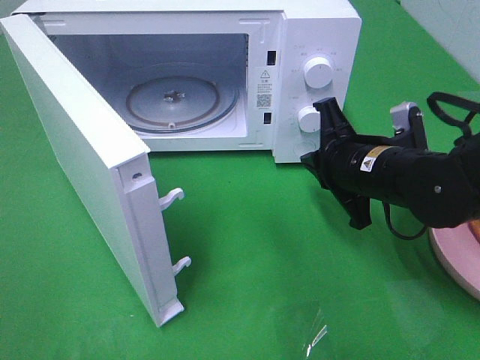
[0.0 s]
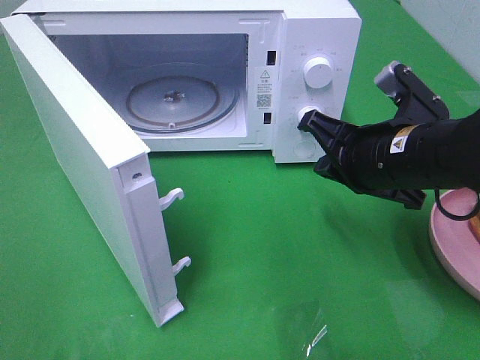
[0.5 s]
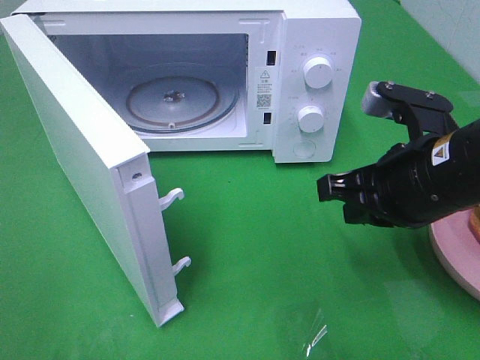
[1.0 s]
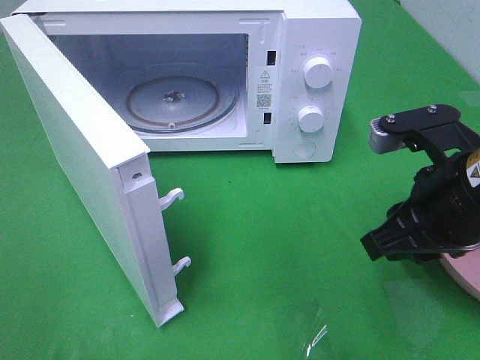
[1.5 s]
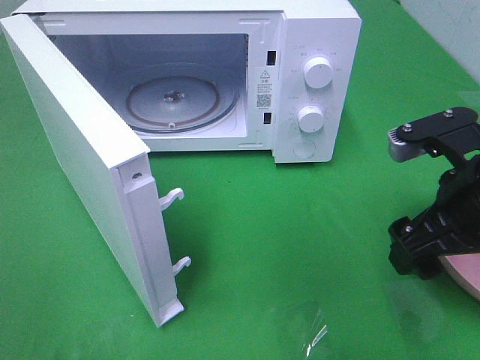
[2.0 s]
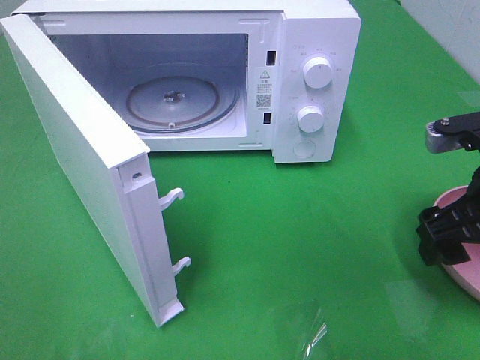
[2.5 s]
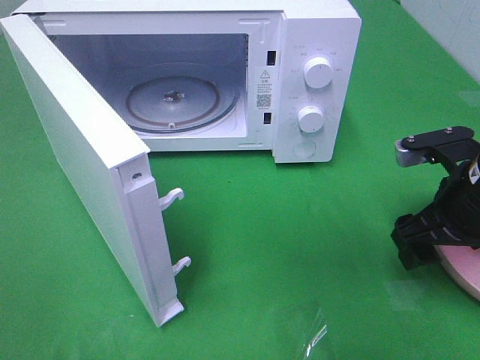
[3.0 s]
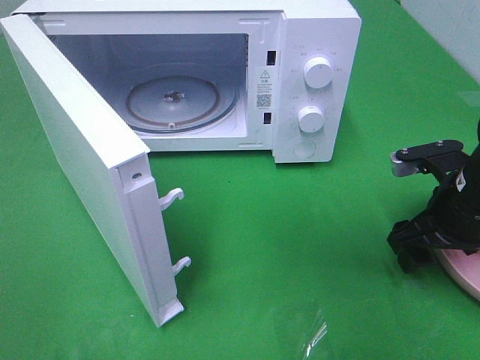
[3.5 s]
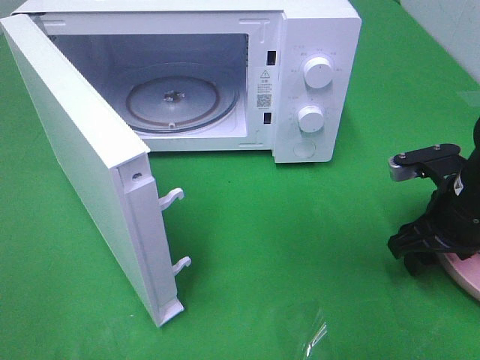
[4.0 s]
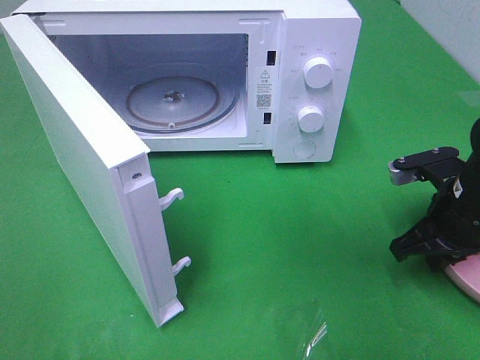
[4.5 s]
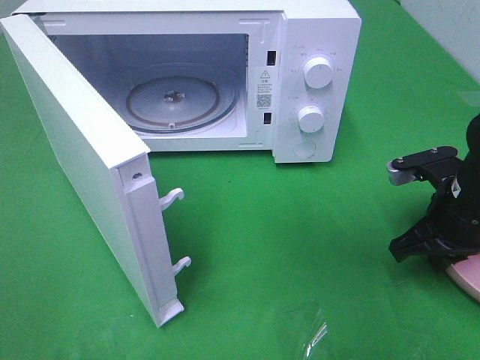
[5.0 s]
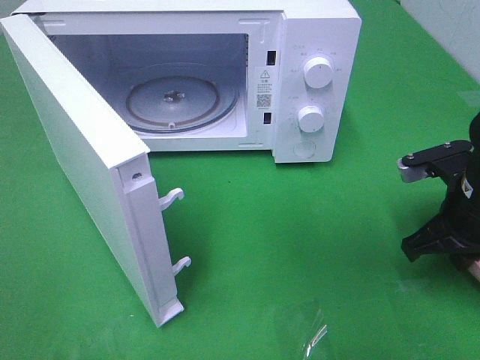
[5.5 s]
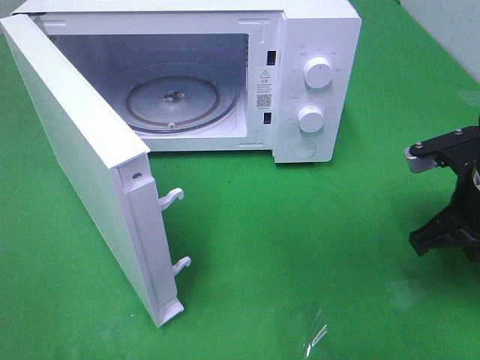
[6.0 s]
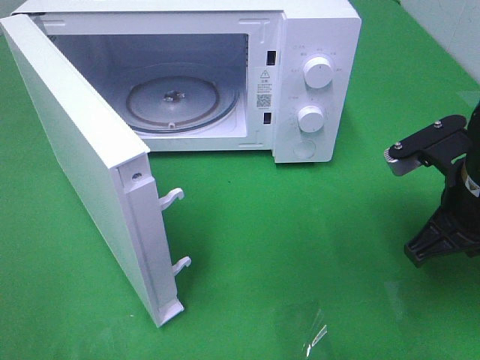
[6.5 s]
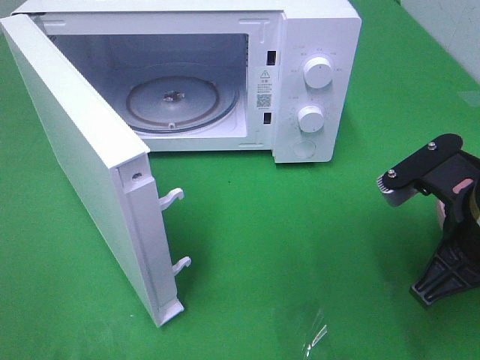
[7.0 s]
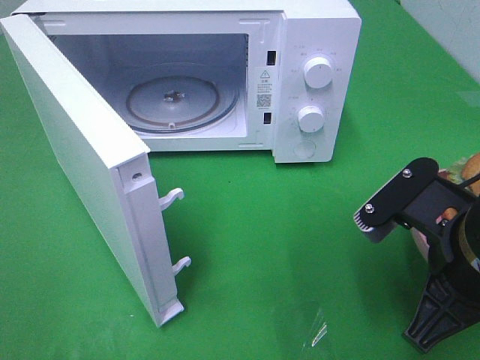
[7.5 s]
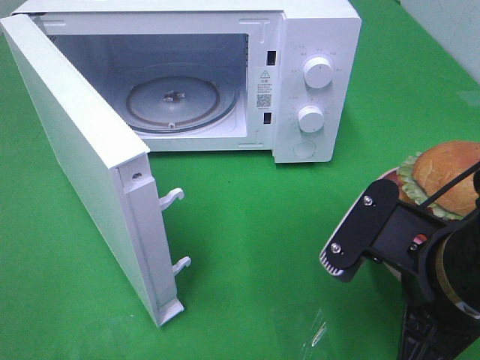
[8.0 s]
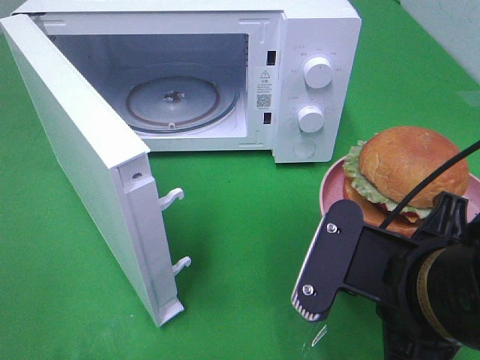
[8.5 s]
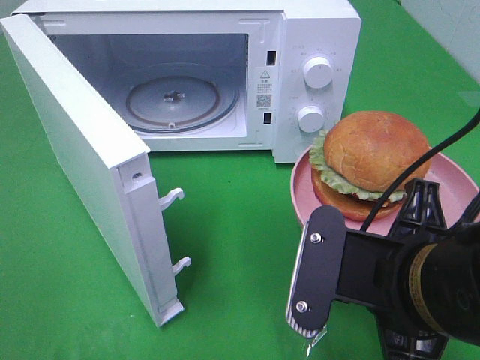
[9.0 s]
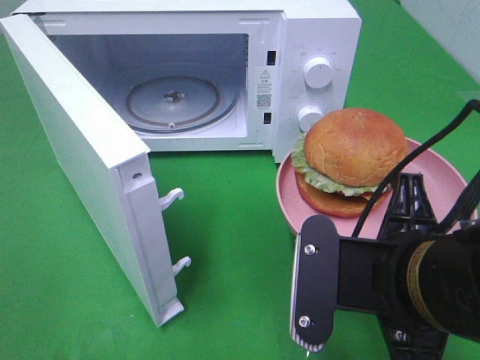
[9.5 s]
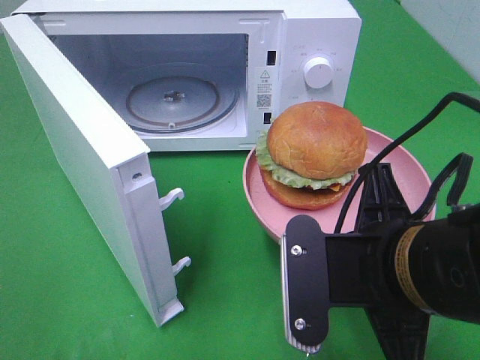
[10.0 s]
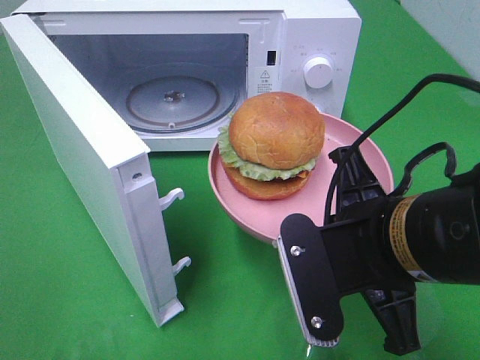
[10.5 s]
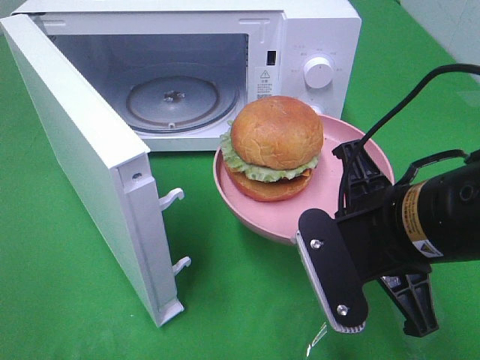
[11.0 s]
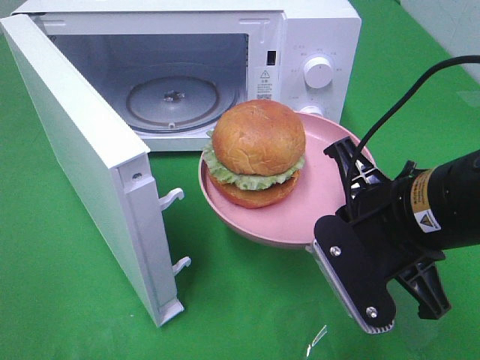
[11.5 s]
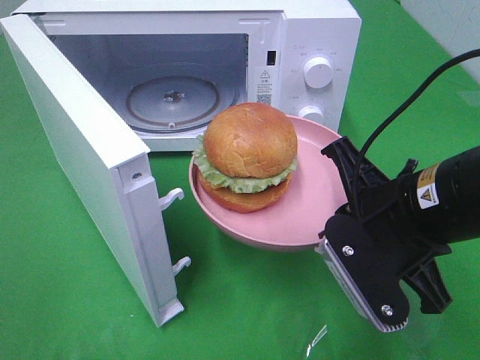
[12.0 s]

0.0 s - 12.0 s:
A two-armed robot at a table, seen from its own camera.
Task of the whole recording: Heat the burger.
Step, 0.5 s - 5.0 s: Right hand: grab the plate with the hamburger.
0.0 s - 2.0 s: The right gripper travels backward, to the right and upward by approximately 10 cm, and opens.
2.0 s - 4.0 s: The right gripper moves downward and forward, roughly 10 cm.
4.0 s - 6.0 s: The right gripper closes.
6.0 s - 8.0 s: The right gripper goes some 15 cm backward and to the left.
10.0 s - 12.0 s: The right gripper travels forward by about 5 cm.

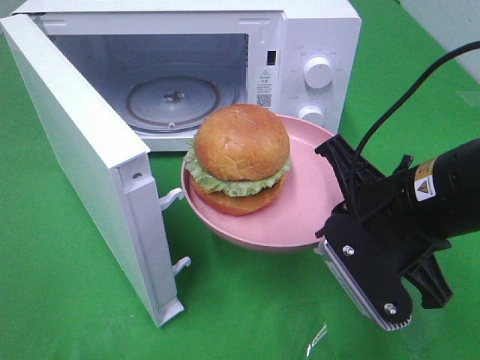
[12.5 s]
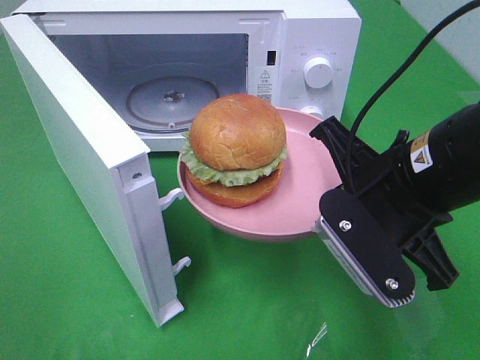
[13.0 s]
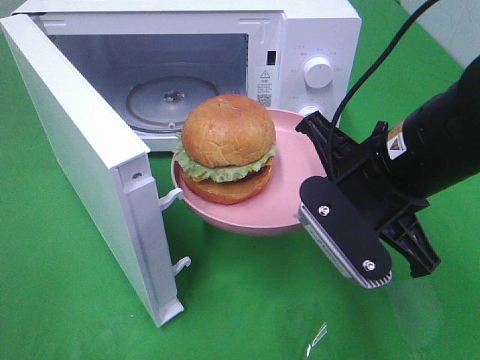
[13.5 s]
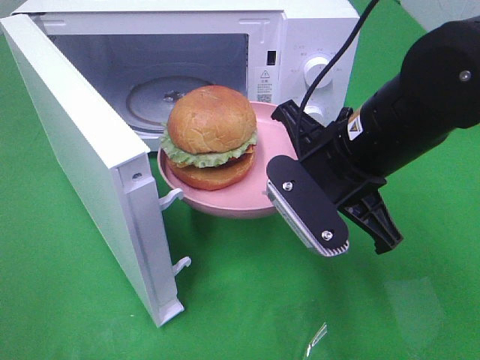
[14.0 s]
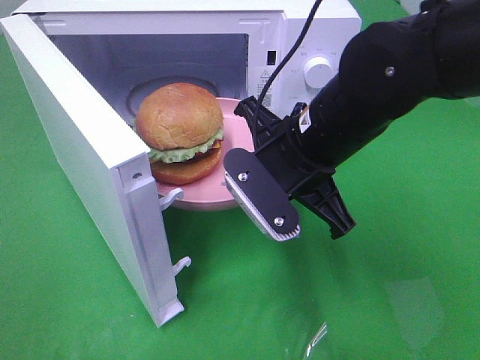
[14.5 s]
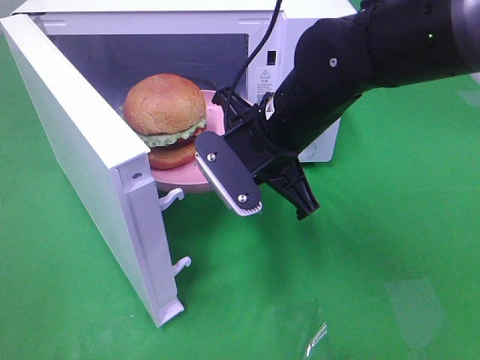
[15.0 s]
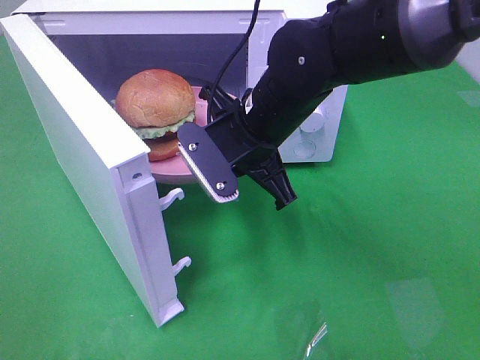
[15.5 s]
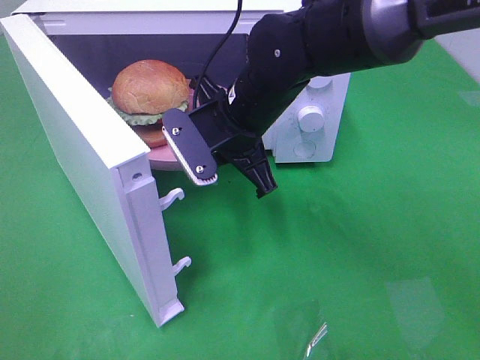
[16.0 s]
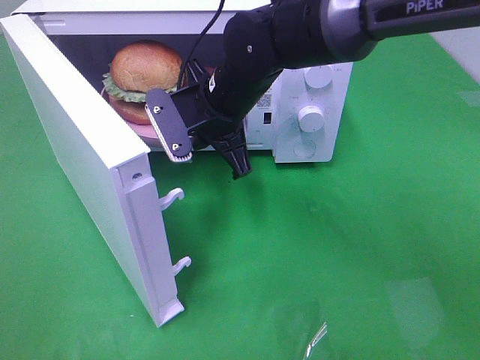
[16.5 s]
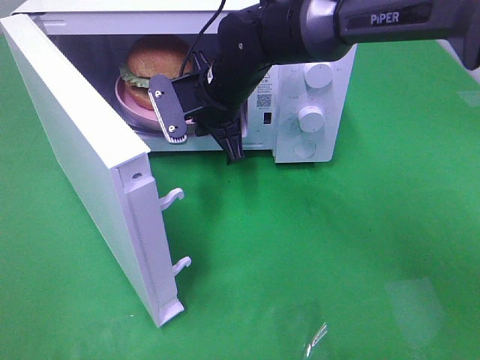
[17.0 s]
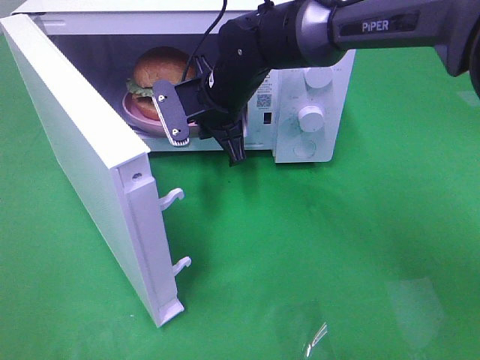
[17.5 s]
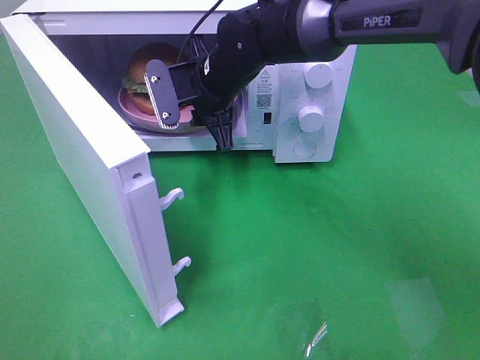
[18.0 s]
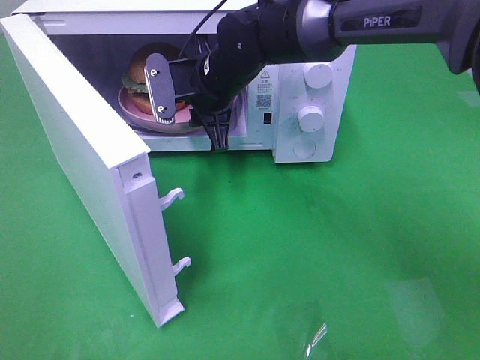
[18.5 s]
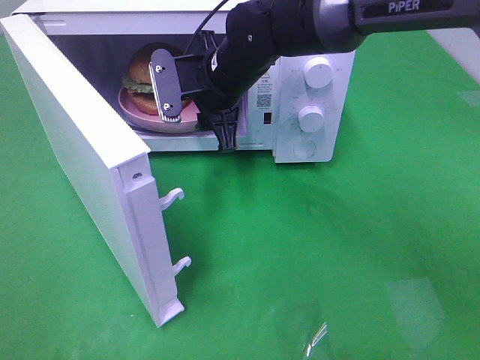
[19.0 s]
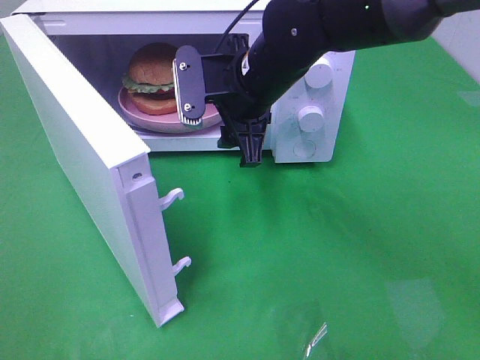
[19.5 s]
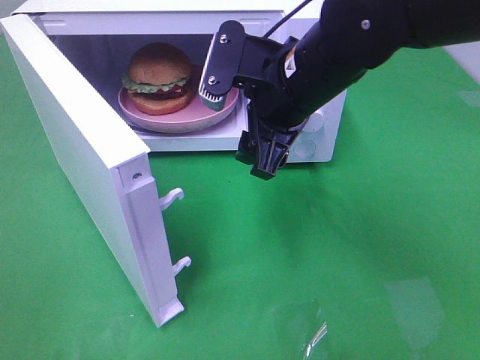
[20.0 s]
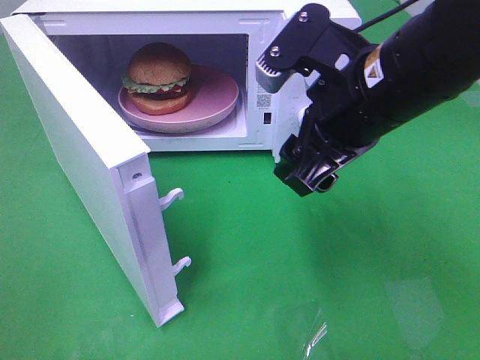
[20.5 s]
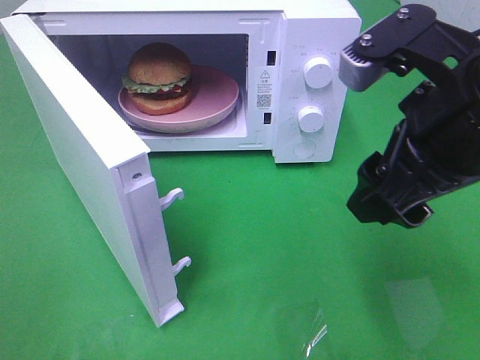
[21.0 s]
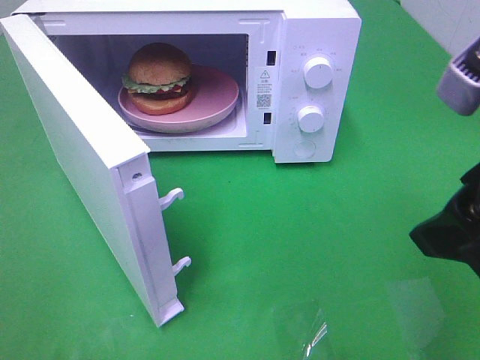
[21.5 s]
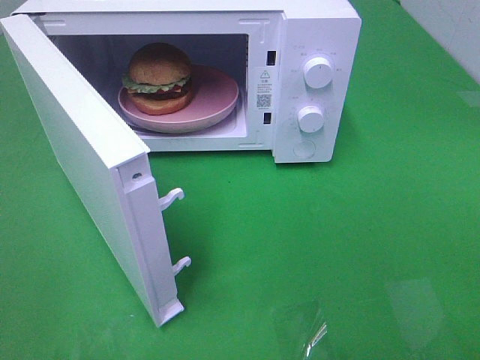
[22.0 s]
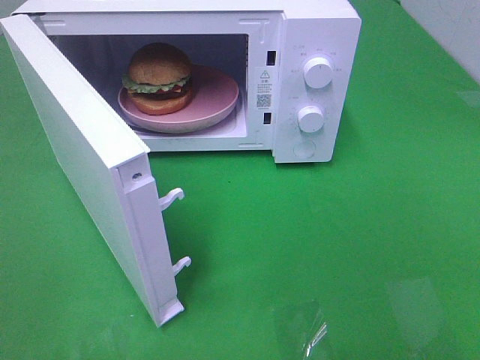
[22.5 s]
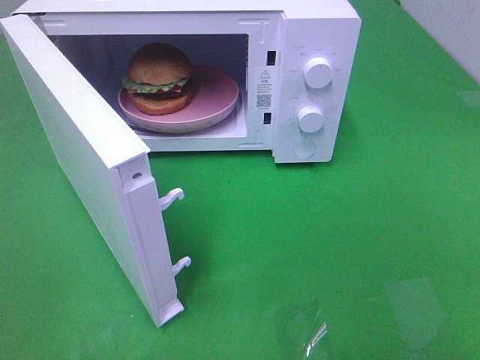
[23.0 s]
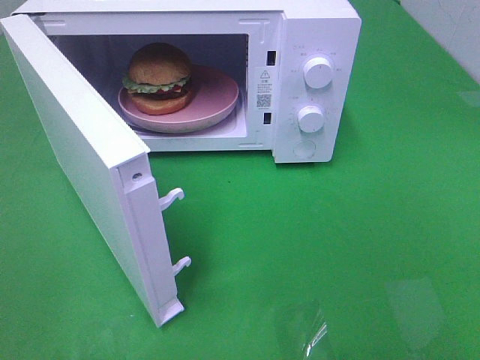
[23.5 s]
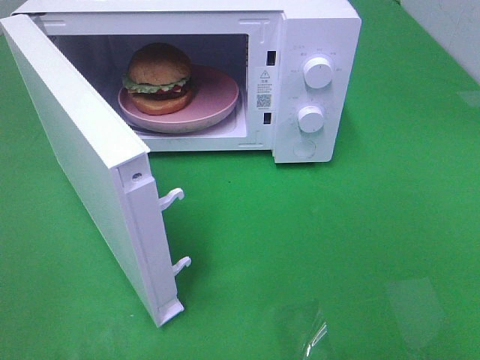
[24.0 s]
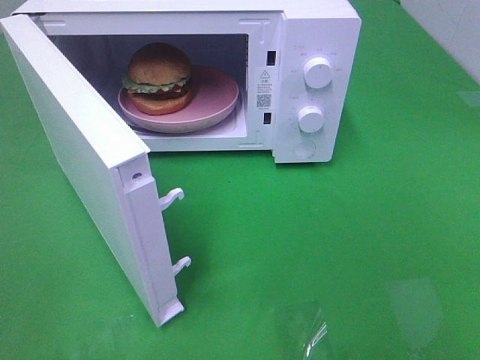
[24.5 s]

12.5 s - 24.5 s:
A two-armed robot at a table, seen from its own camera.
Task of the whole recording: Heat the burger.
Step, 12.5 s - 19.0 s: Right hand: place the plate in the microwave.
12.5 s - 14.5 s: The right gripper is displaced forward and to the left by some 10 cm.
14.5 s - 16.5 s: The right gripper moves forward and to the left, about 15 cm.
16.5 s - 18.5 s: The right gripper changes place by approximately 5 cm, and opens its fingers.
18.5 s - 20.5 s: The right gripper heads backward, to the right and upward, covering roughly 25 cm, and opens.
20.5 s - 22.5 s: The right gripper is displaced backward and to the right by some 25 cm.

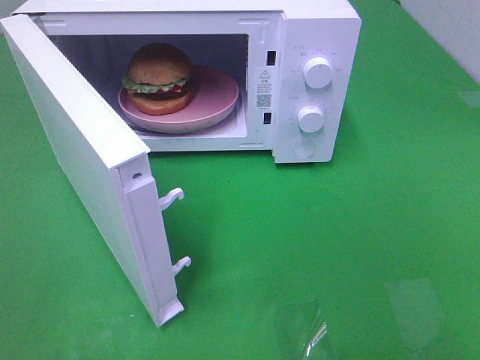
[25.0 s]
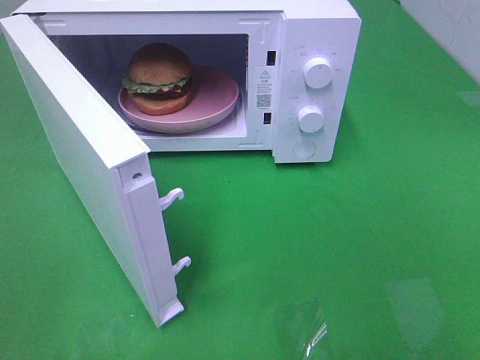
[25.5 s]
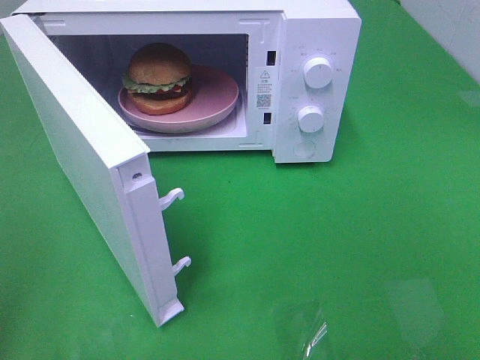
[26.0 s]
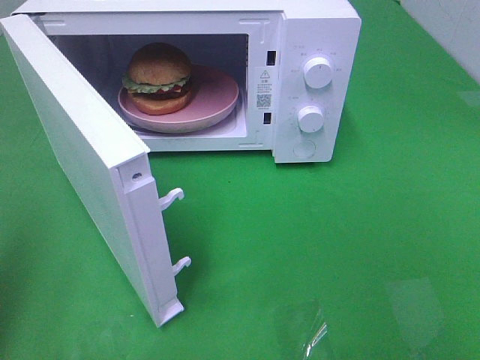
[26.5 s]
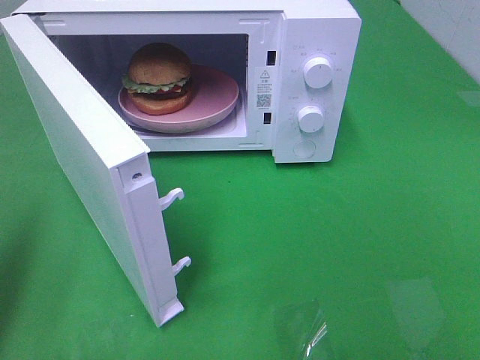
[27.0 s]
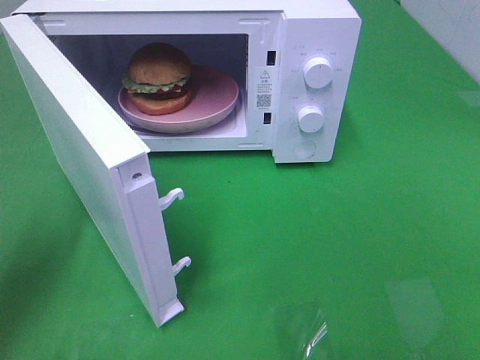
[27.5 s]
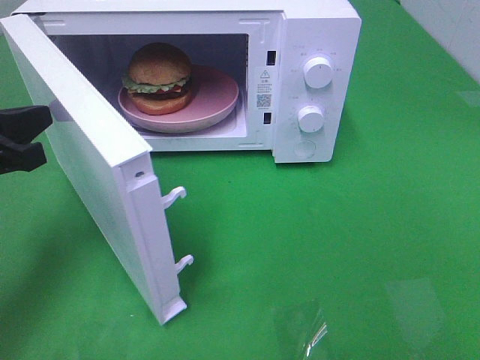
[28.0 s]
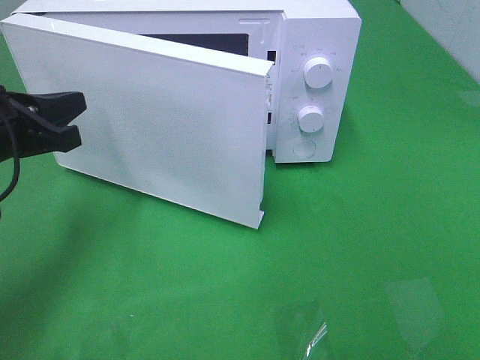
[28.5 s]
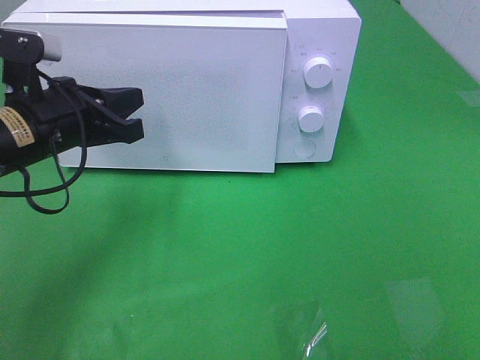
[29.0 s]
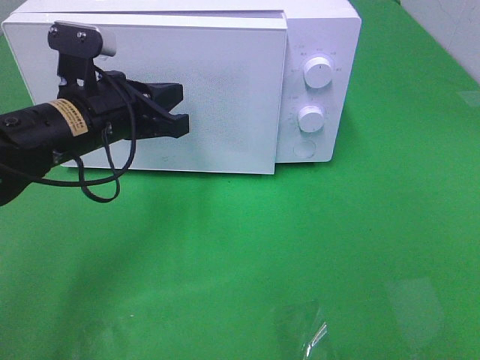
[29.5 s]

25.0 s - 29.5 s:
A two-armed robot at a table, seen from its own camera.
Task of the whole recording: Heat the burger.
25.0 s - 27.0 s: The left gripper goes roughly 15 cm forward, and closes up.
27.0 s - 29.5 s: The left gripper moves to the right and forward, about 25 cm.
